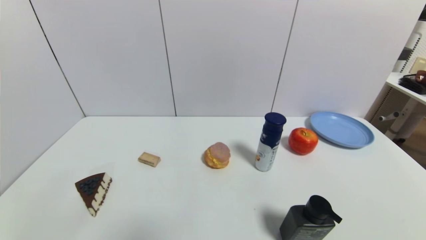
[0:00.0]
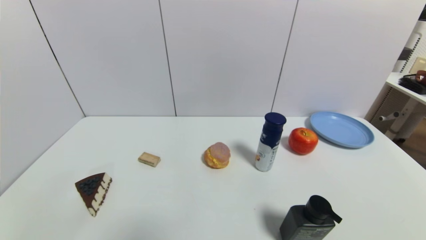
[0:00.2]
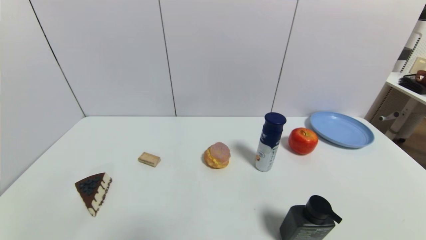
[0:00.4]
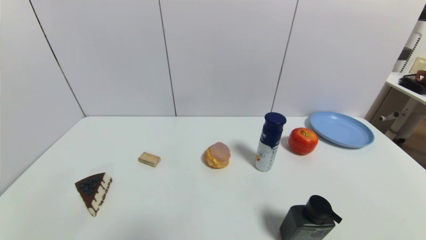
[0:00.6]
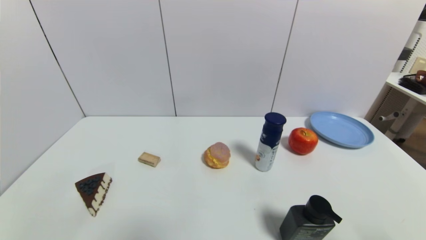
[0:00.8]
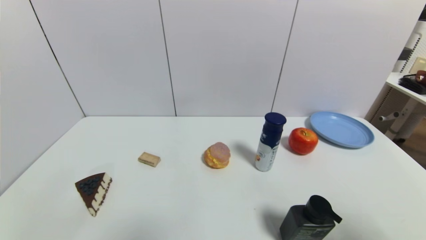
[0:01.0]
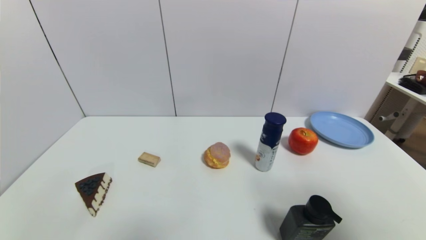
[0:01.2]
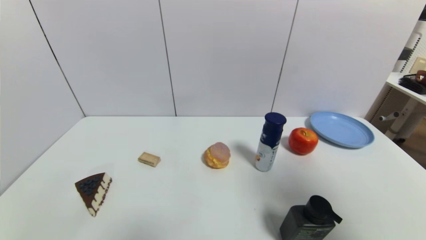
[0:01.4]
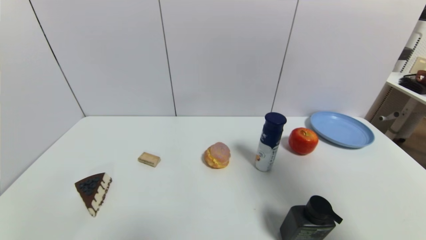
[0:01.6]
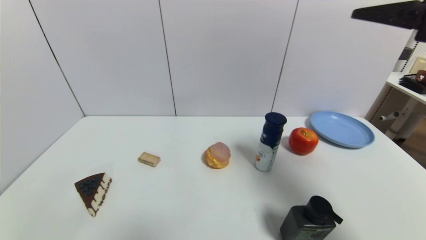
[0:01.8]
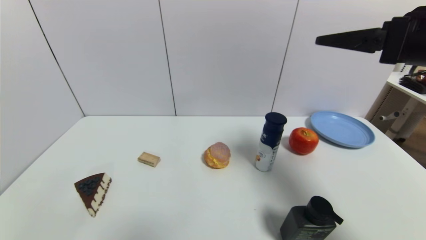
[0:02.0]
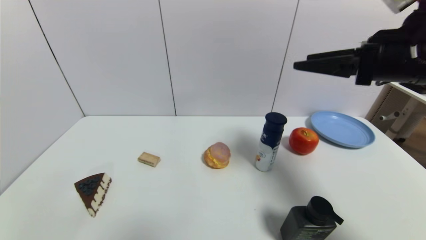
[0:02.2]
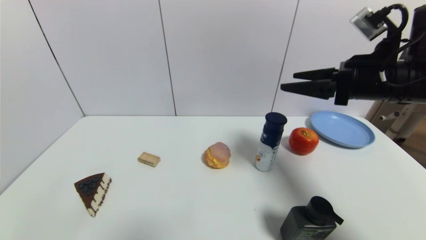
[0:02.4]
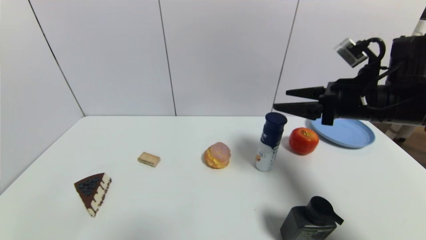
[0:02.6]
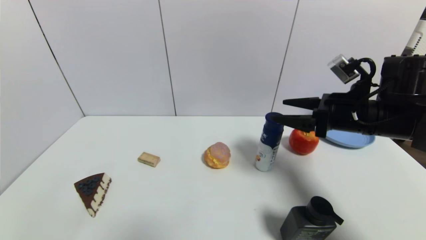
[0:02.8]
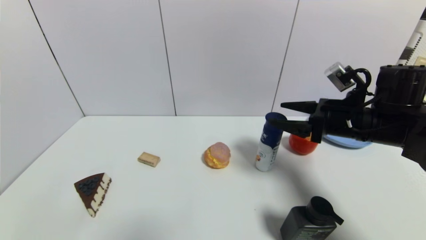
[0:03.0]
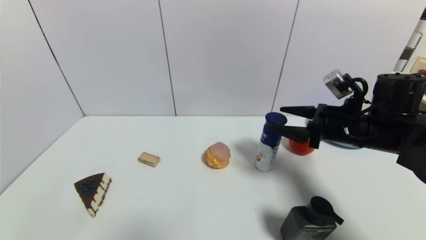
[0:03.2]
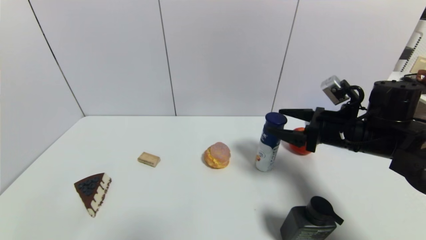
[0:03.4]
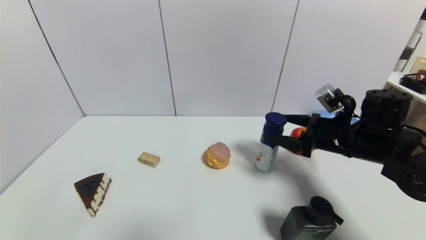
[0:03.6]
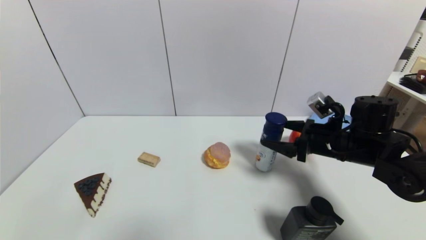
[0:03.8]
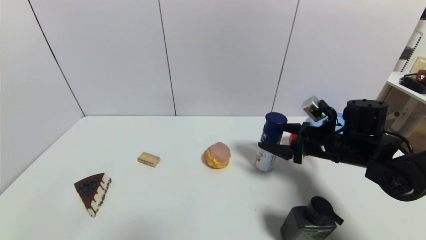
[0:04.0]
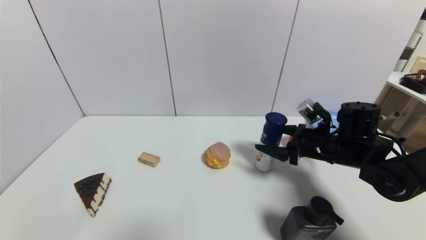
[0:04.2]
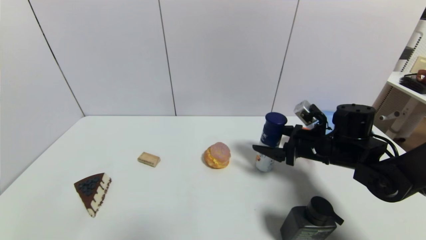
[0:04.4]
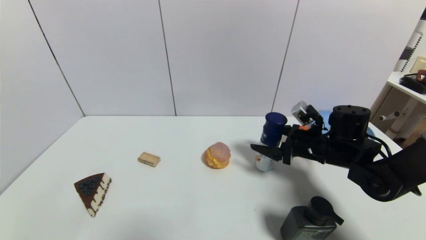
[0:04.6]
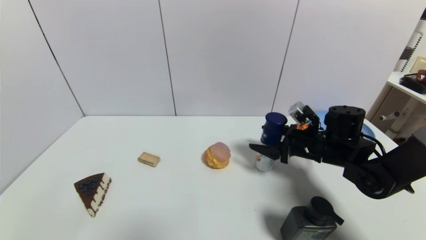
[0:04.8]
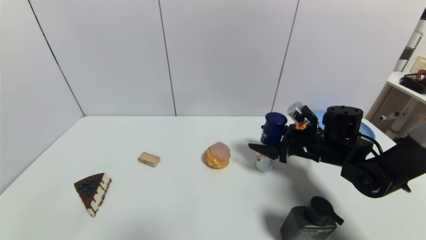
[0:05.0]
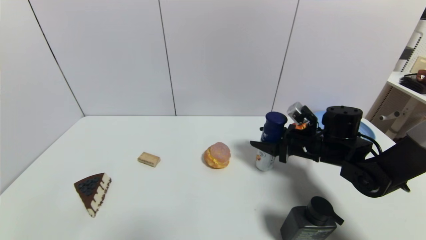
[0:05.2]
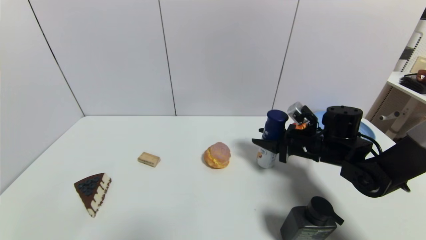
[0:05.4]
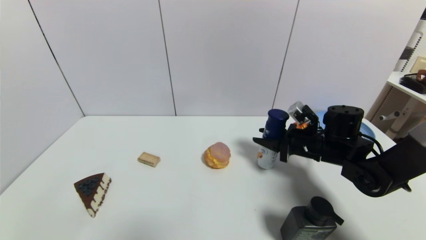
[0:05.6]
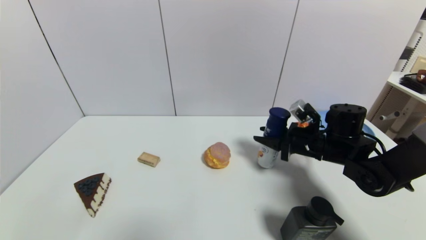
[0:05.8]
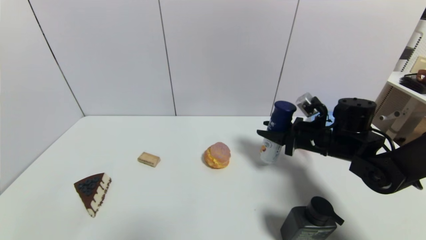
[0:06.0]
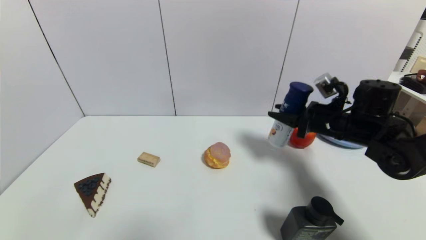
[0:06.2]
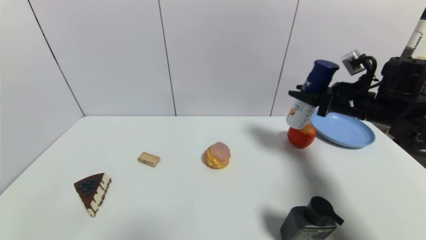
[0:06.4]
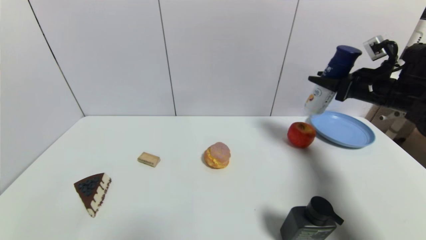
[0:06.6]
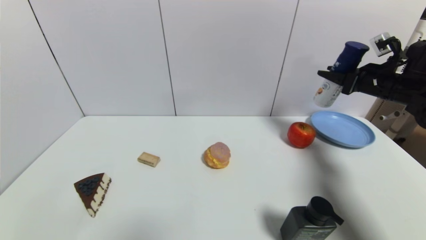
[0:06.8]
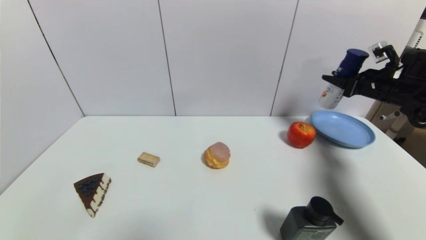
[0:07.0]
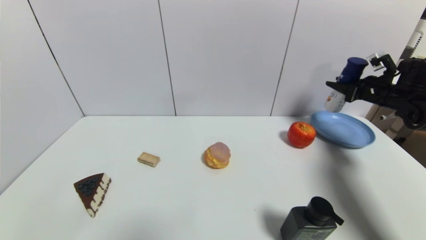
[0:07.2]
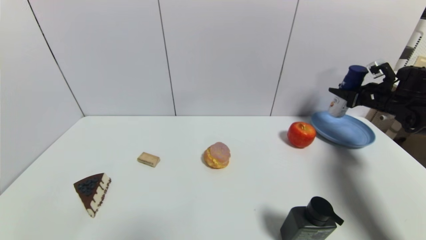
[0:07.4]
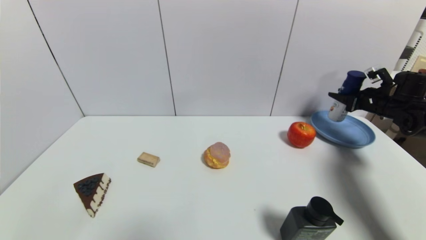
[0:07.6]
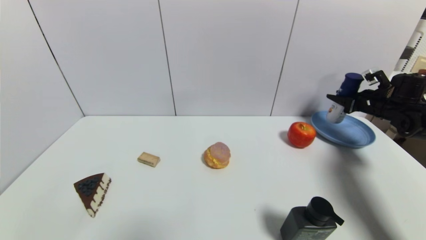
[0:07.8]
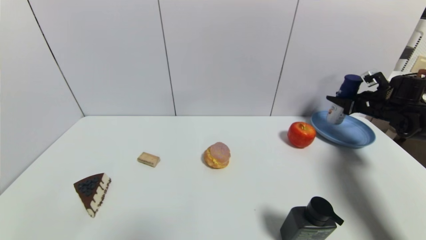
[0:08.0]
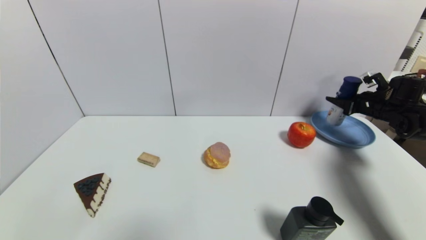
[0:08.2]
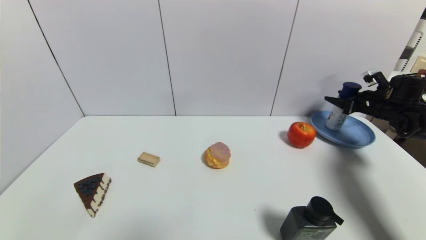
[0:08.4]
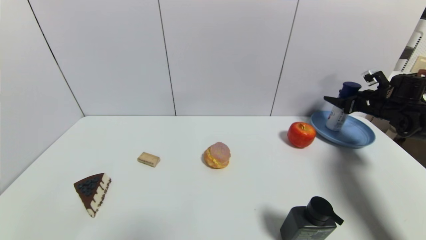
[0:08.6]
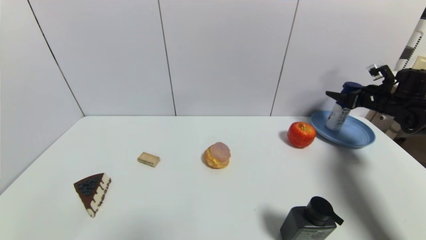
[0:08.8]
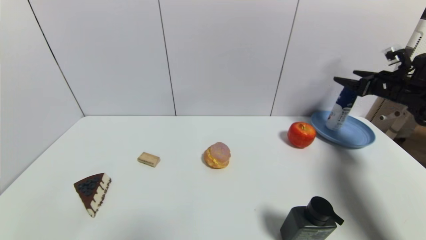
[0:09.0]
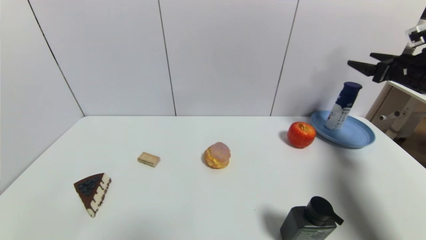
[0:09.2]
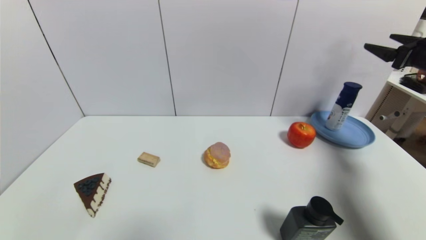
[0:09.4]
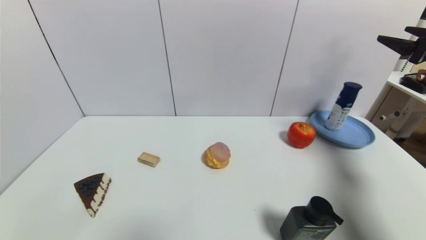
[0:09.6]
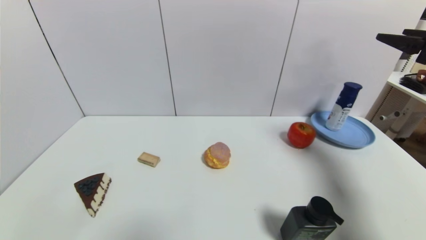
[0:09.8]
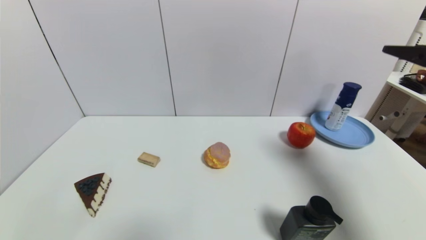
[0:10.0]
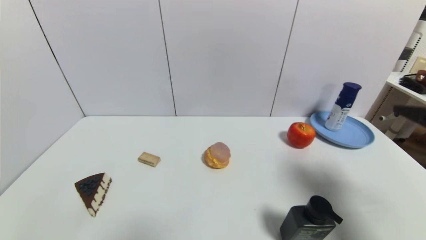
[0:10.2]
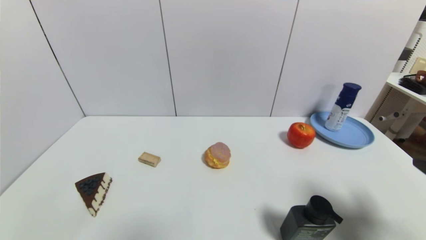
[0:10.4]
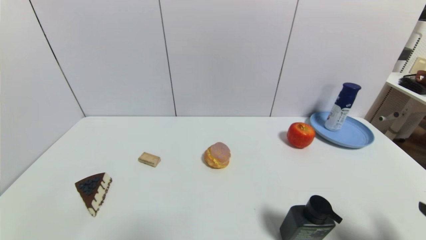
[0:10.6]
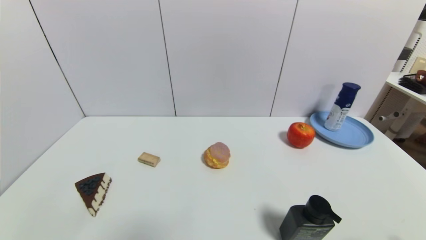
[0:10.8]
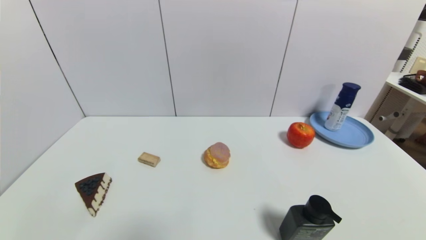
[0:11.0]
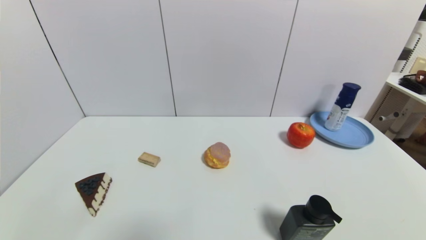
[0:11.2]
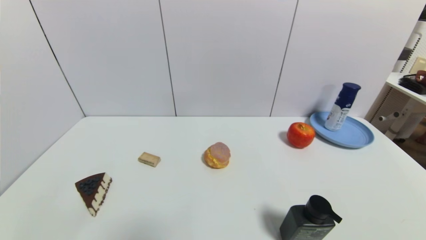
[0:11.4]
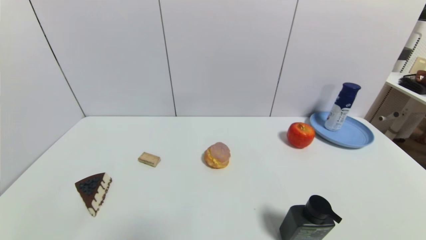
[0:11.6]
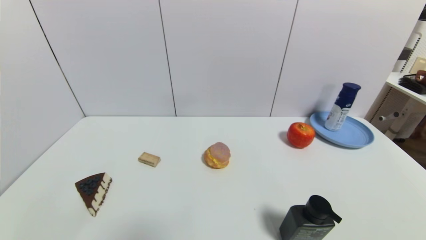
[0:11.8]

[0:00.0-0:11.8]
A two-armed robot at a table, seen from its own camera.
Task of the whole recording: use a gripper to pick the target object and place on the blue plate.
Step, 0:00.0 to 0:05.4: Grasp the yogurt with the right gripper.
Step, 0:05.6 to 0:08.4: Place the yogurt on the blue plate with the right gripper.
0:00.0 to 0:01.4: The right gripper goes roughly 30 cm upward.
0:01.4 to 0:03.0: The right gripper moves forward and downward, some 25 cm.
0:03.0 to 0:04.4: The right gripper heads downward, covering about 10 cm.
0:04.4 to 0:06.0: The right gripper closes up.
0:06.0 to 0:07.4: The right gripper shifts roughly 25 cm to the right and forward.
0:07.4 to 0:08.8: The right gripper opens.
0:08.8 to 0:10.4: The right gripper is displaced backward by some 35 cm.
0:10.4 to 0:11.8: The right gripper goes approximately 20 cm downward and backward.
